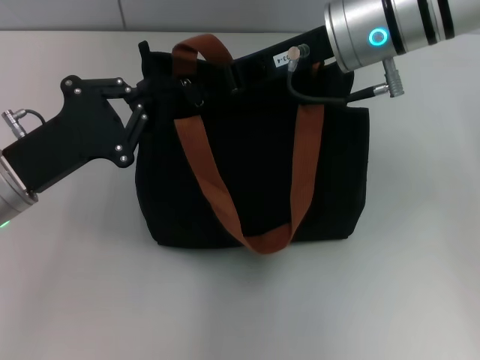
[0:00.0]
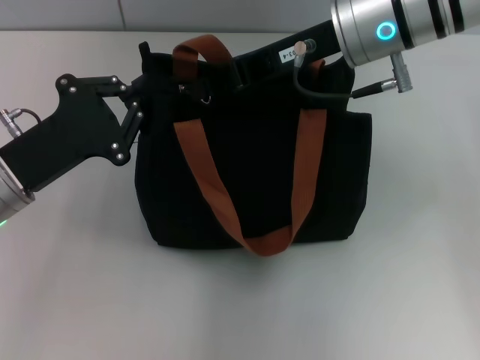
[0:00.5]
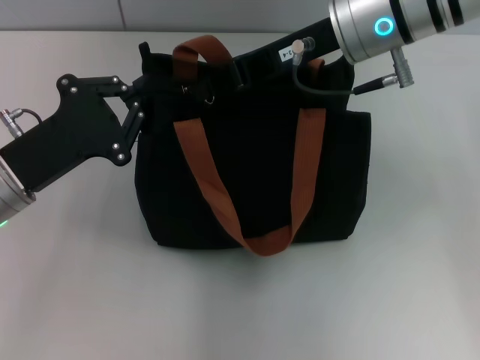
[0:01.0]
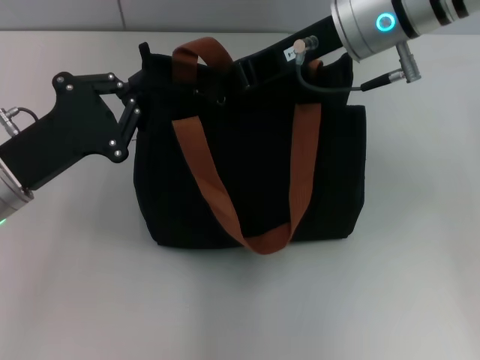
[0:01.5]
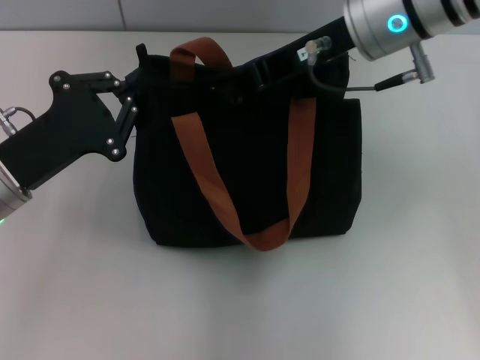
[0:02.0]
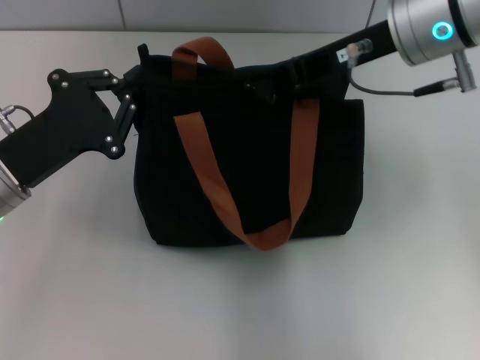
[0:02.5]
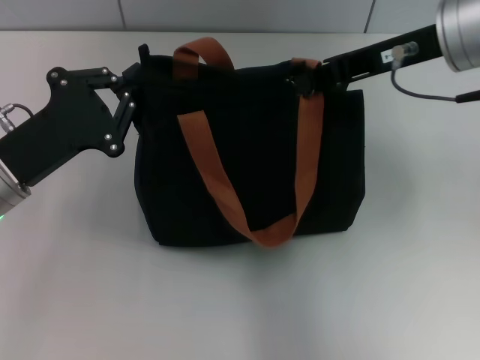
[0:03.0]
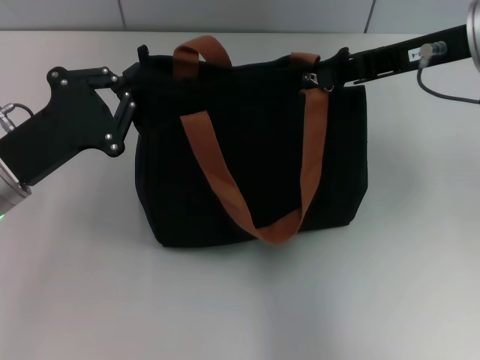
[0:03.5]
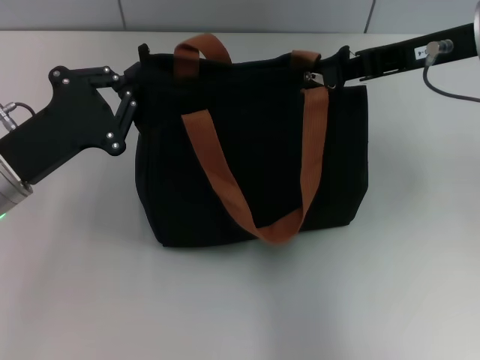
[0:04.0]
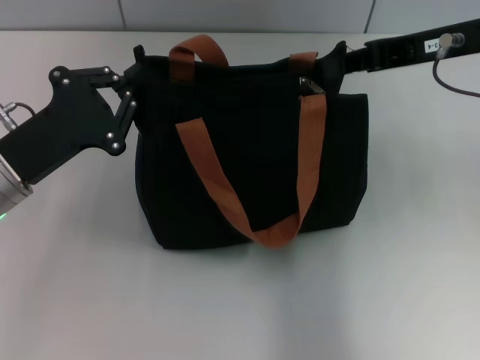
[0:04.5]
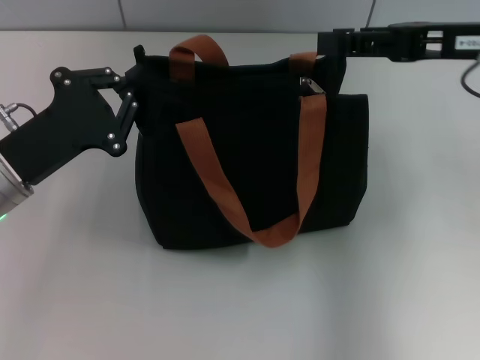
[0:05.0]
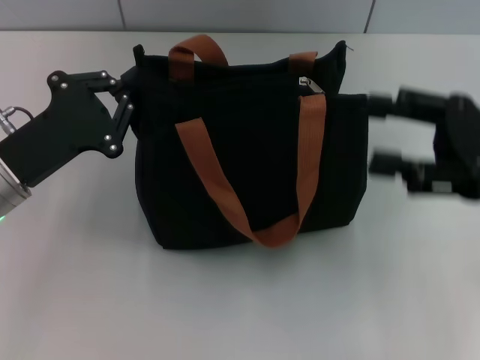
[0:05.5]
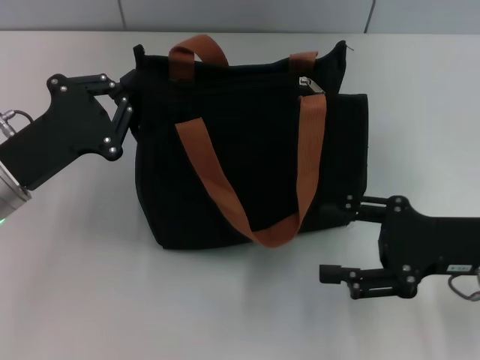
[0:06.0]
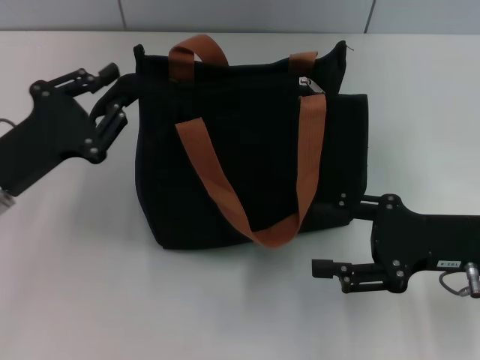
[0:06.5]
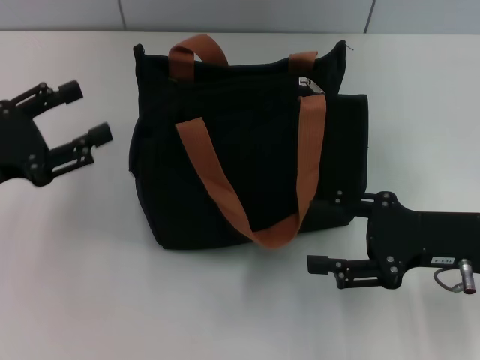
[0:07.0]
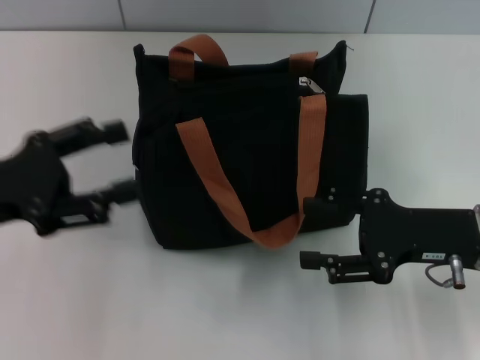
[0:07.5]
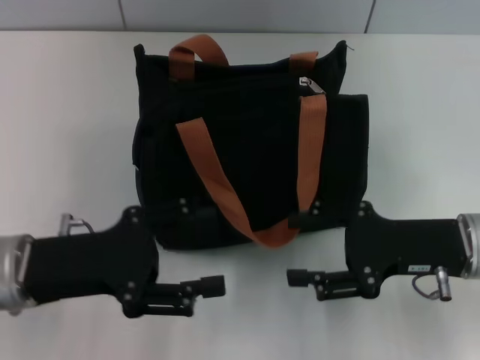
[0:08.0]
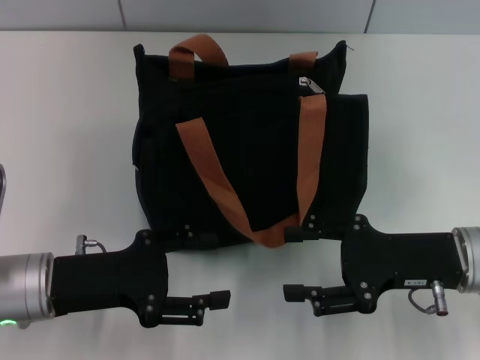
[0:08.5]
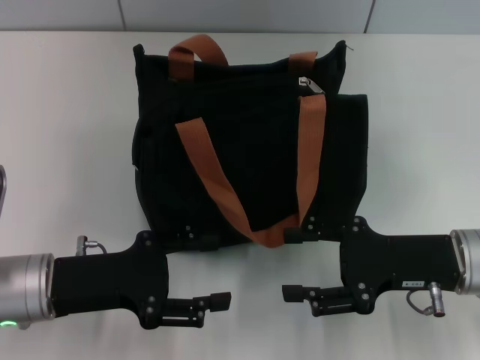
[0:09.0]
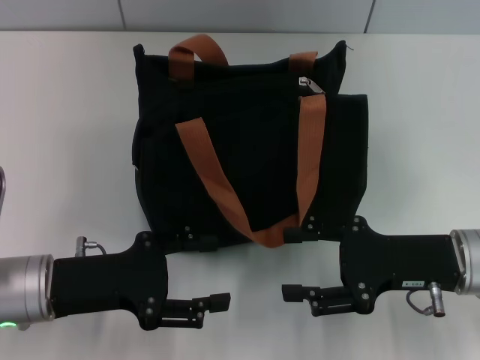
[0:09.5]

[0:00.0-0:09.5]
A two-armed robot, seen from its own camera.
Step, 0:00.0 to 0:04.0: Pull up the zipper with your right hand.
0:00.0 to 0:02.0: The grippers make only small movements.
0:02.0 to 0:04.0: The right gripper is displaced to the right by roughly 10 cm.
0:04.0 to 0:05.5: The right gripper travels backward, downward and to the right by some 15 cm, and opens.
0:05.5 to 0:07.5: The right gripper goes approximately 5 cm downward. Meanwhile the left gripper shifts by approximately 5 cm, and opens up.
0:07.5 to 0:09.5: The left gripper travels downward and to the right by roughly 10 cm.

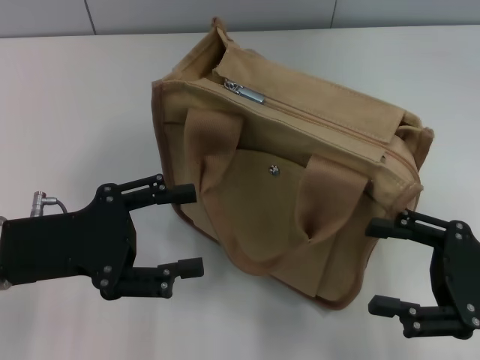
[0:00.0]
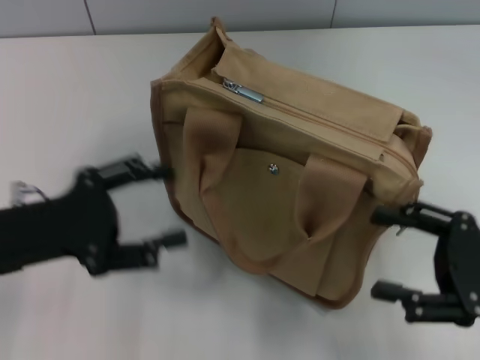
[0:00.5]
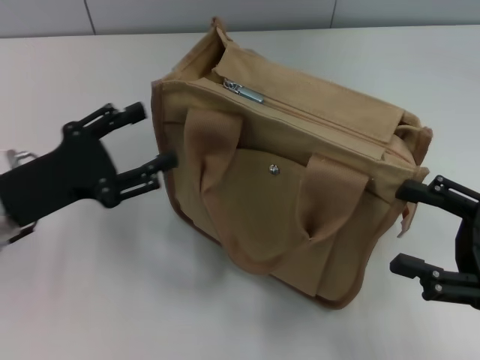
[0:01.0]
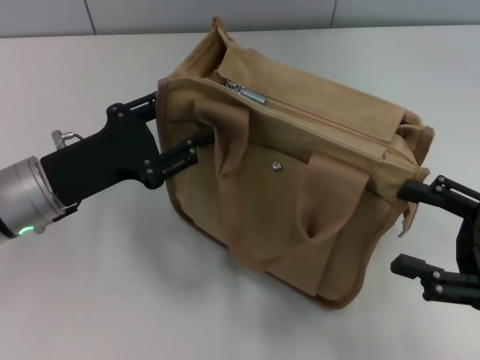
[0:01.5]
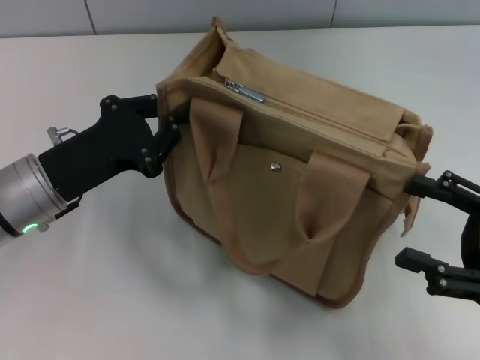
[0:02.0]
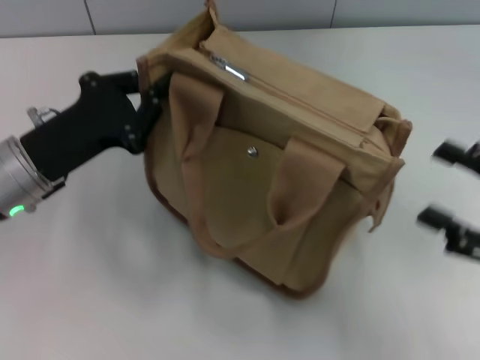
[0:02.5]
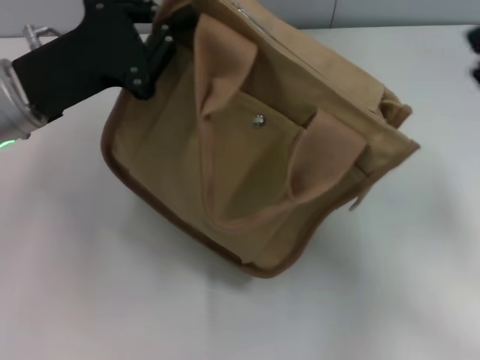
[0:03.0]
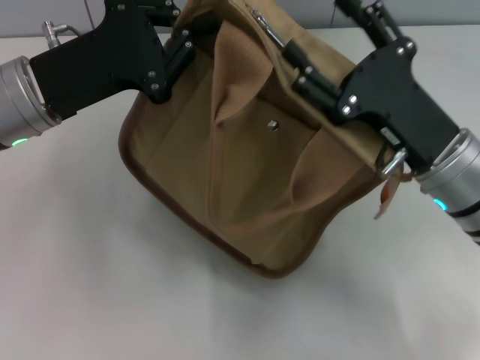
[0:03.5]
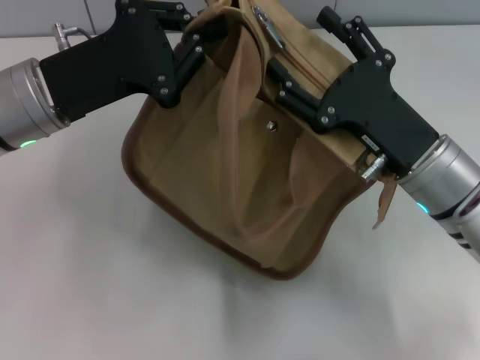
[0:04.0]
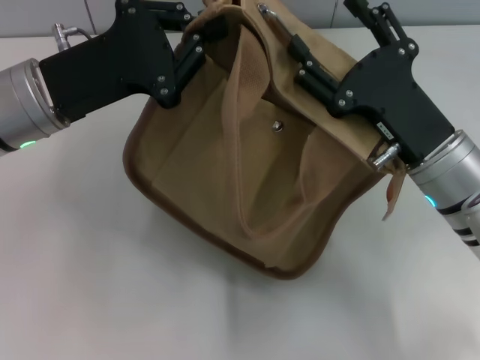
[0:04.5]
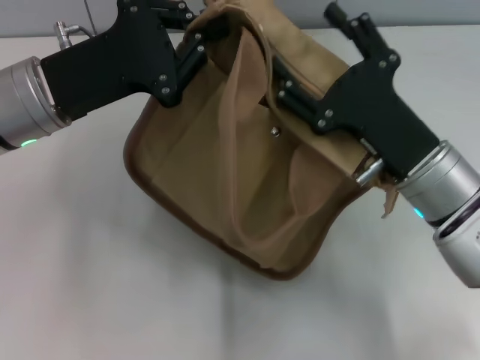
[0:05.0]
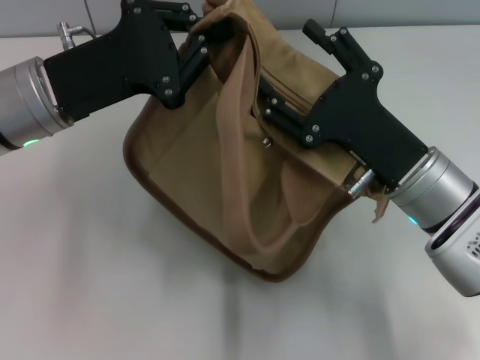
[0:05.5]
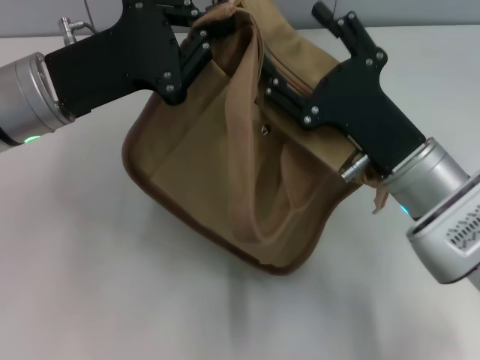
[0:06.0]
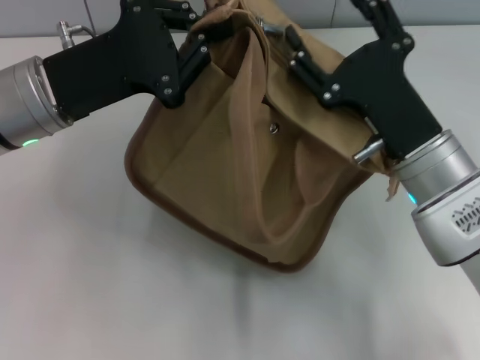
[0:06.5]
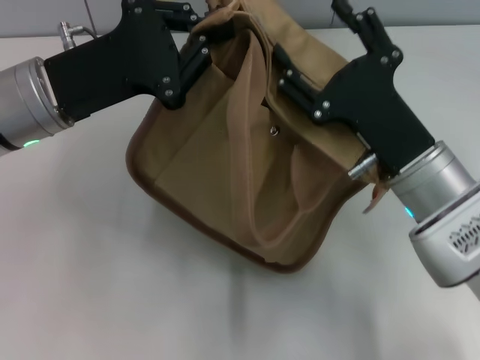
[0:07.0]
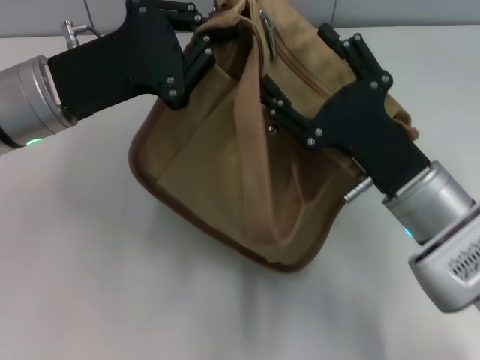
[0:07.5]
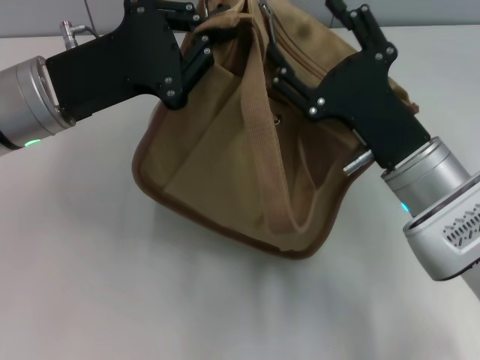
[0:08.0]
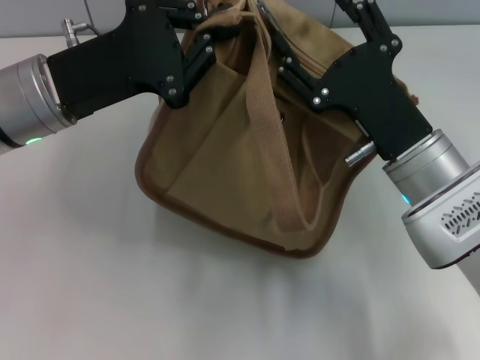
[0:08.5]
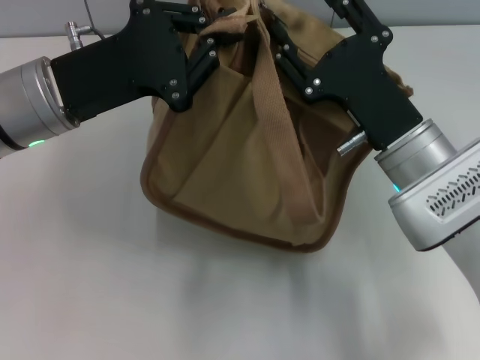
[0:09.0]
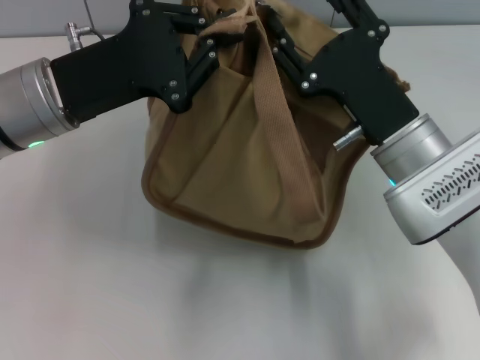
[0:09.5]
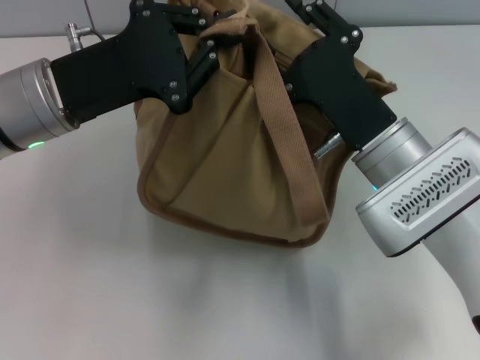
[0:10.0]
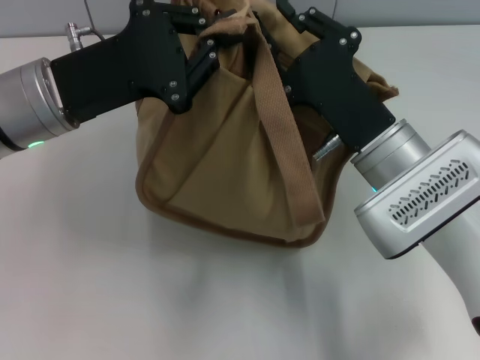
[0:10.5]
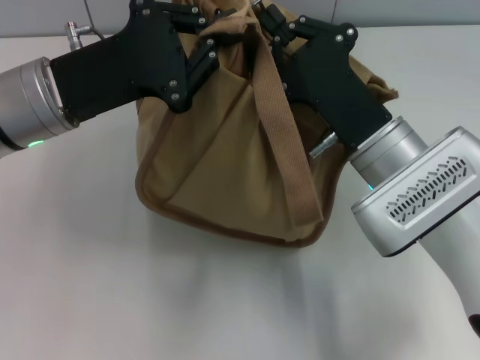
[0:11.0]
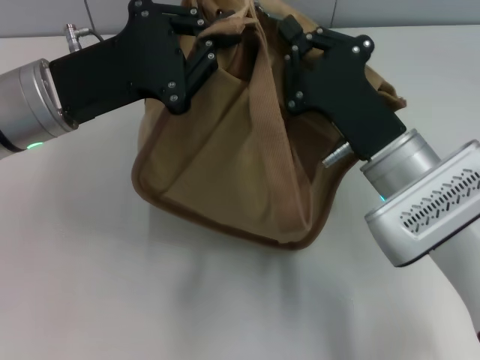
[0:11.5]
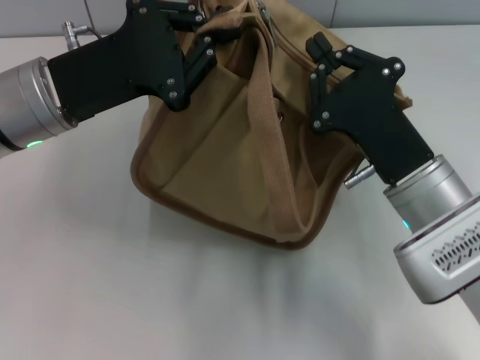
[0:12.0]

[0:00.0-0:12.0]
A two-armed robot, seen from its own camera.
0:00.0 to 0:02.0: The left gripper moves roughly 5 cm, and closes its fingers.
0:02.0 to 0:04.0: The right gripper heads to the left and forward, covering about 15 cm. The left gripper shifts roughly 5 cm upward.
0:04.0 to 0:08.0: The grippers make only small movements.
0:10.0 to 0:12.0: The right gripper closes up.

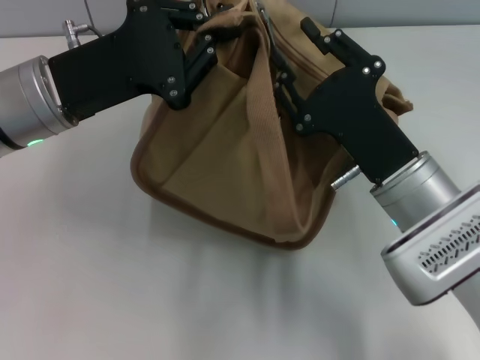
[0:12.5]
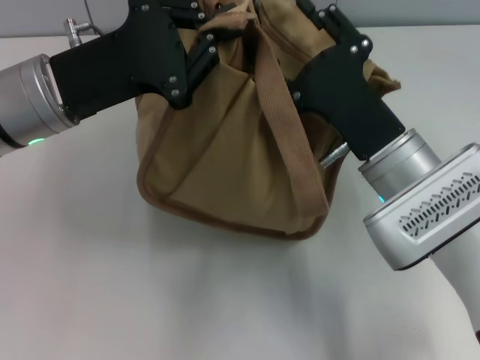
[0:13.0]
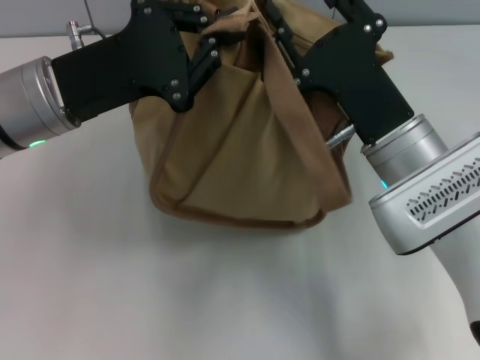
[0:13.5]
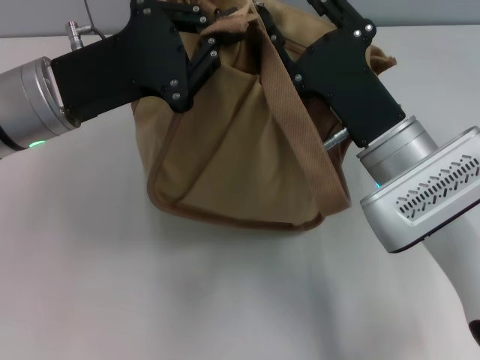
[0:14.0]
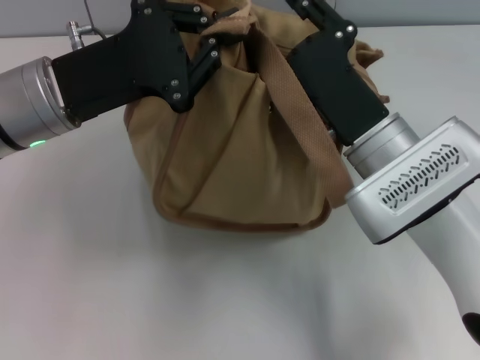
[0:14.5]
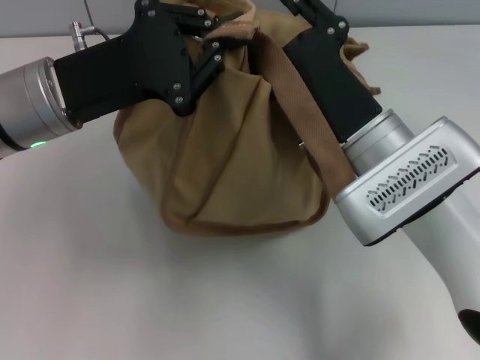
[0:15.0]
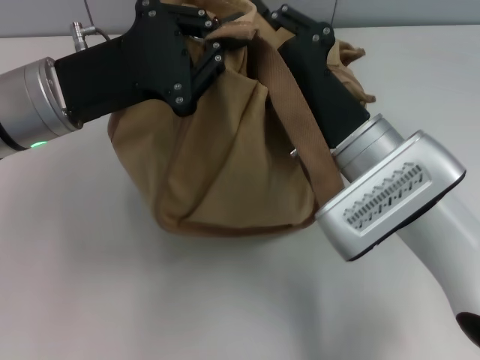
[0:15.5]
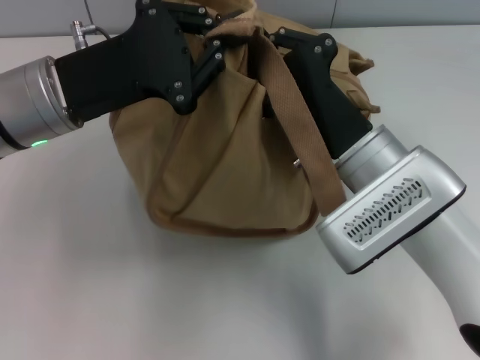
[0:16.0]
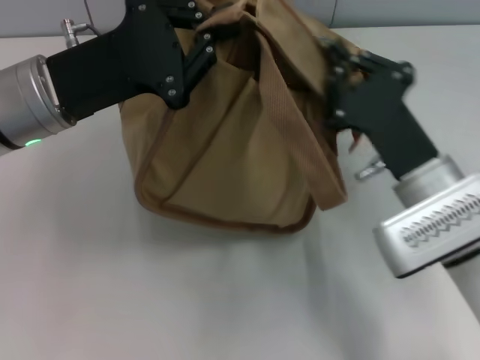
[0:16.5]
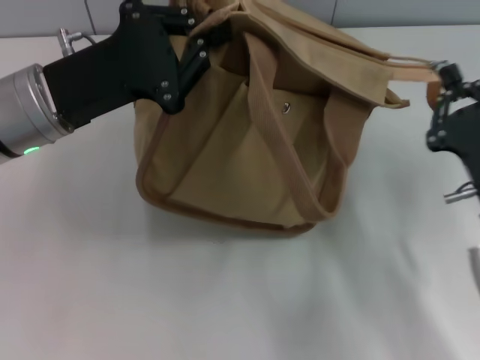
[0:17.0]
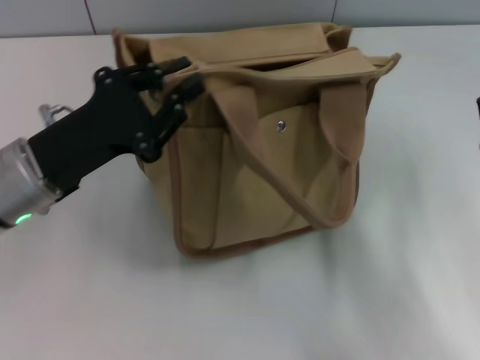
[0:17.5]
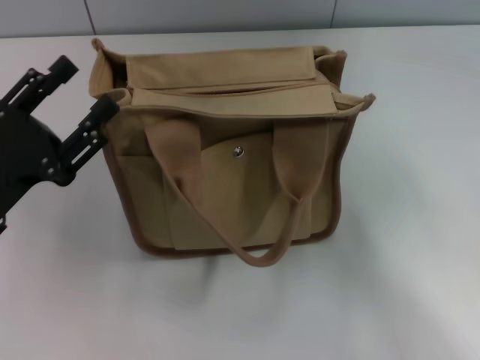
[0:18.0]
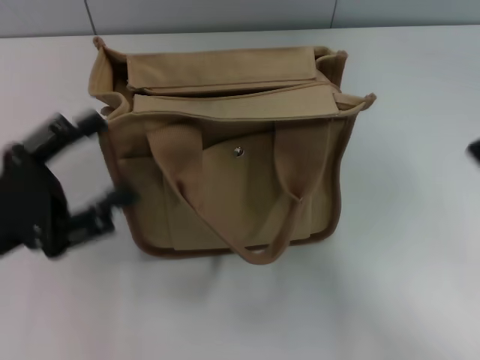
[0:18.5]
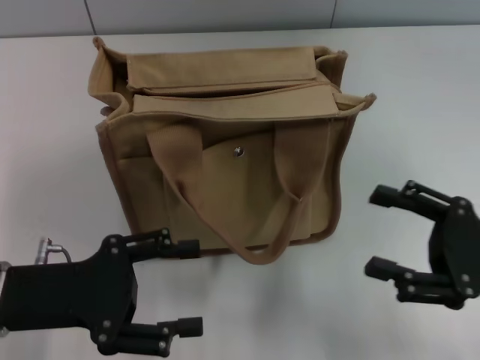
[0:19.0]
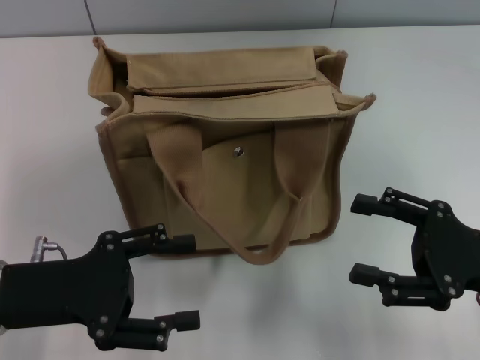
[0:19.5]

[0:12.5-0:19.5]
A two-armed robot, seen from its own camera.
Step, 0:12.5 to 0:17.0: Pull open the zipper with your right hand.
0:14.5 to 0:16.0: The right gripper closes its fingers.
0:16.0 to 0:17.5: The left gripper heads downward, covering about 5 cm. The right gripper shifts approximately 15 cm to the right and backward.
0:17.5 to 0:19.5: The right gripper opens up. Meanwhile the left gripper is displaced backward by roughly 5 cm, and opens its fingers.
